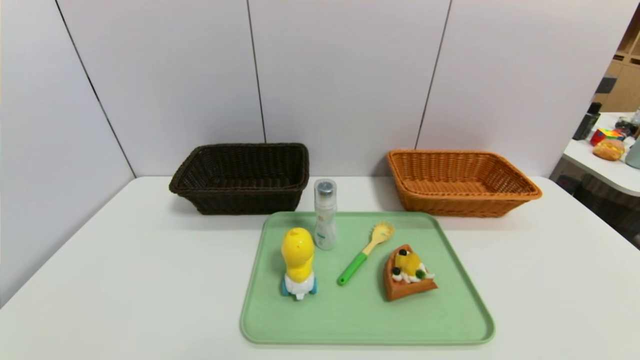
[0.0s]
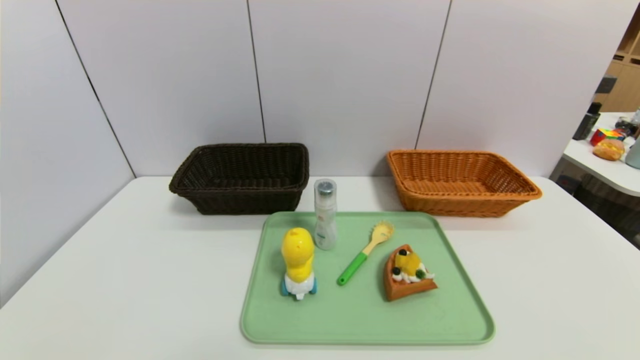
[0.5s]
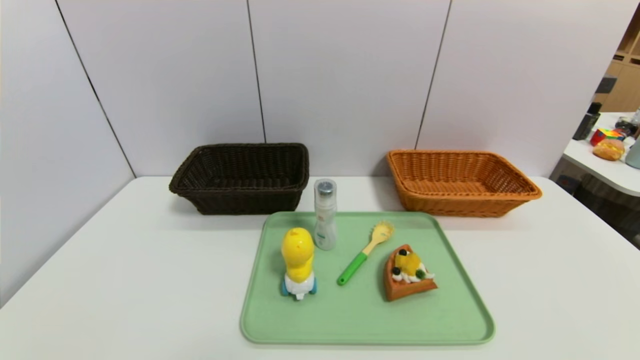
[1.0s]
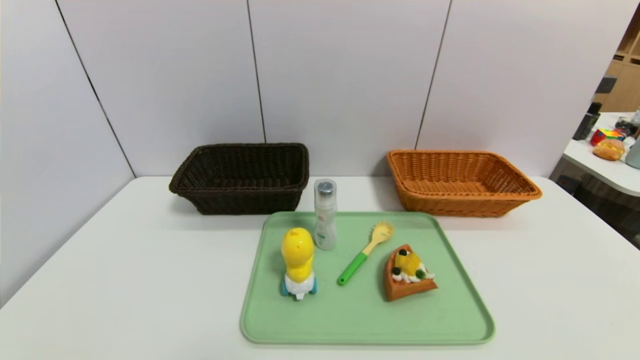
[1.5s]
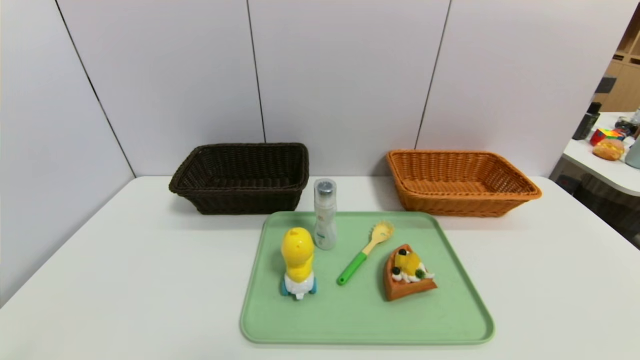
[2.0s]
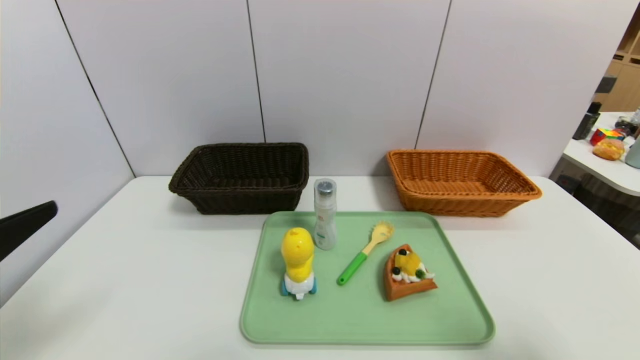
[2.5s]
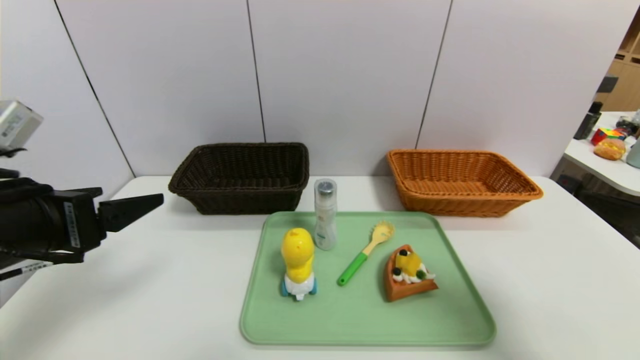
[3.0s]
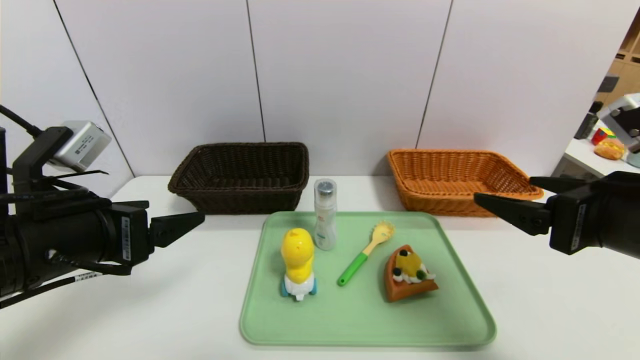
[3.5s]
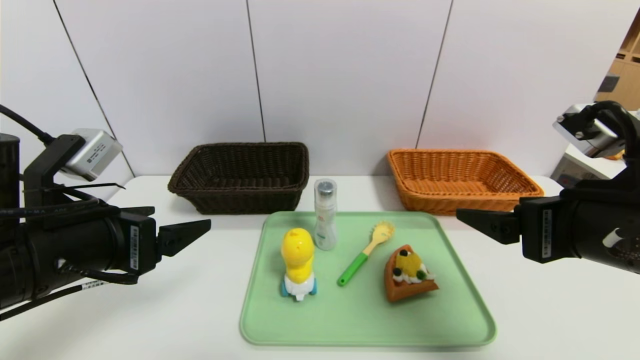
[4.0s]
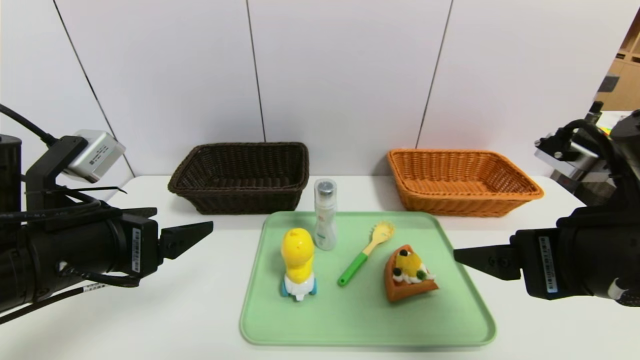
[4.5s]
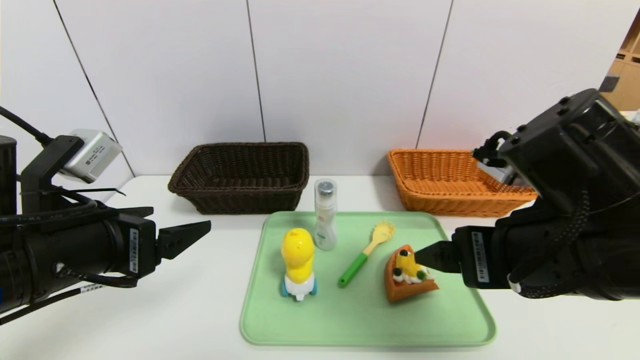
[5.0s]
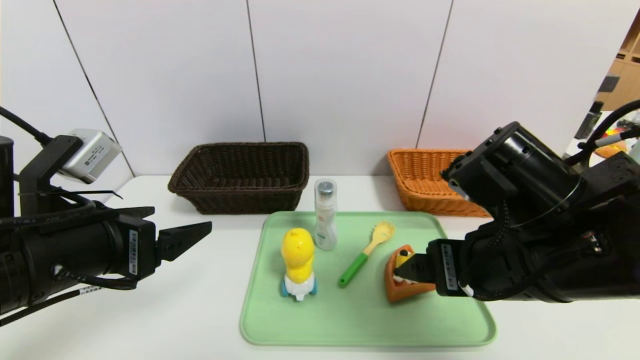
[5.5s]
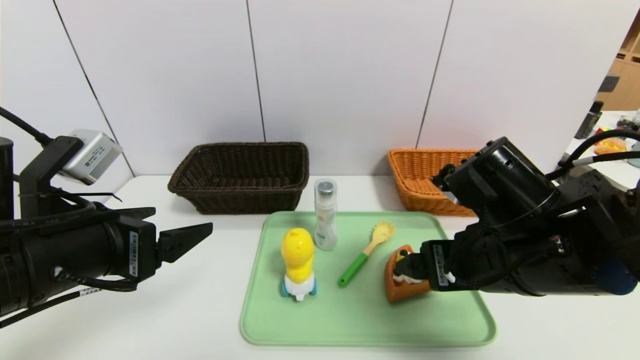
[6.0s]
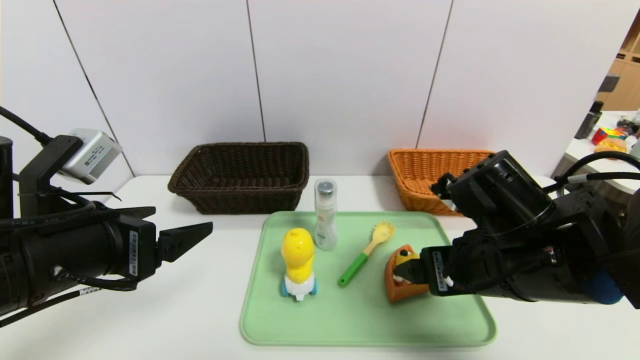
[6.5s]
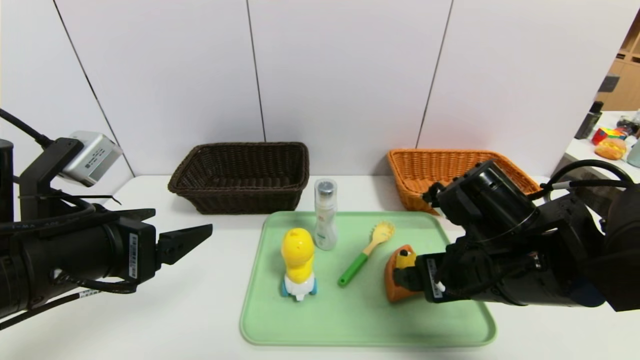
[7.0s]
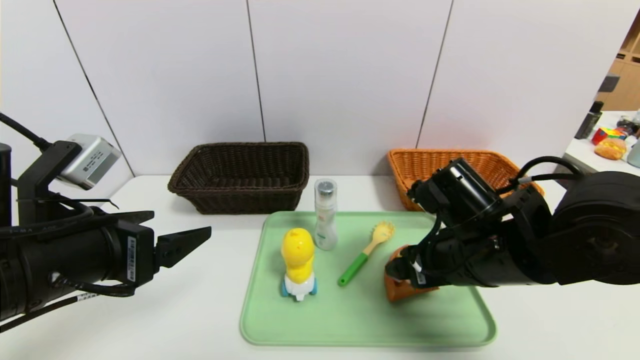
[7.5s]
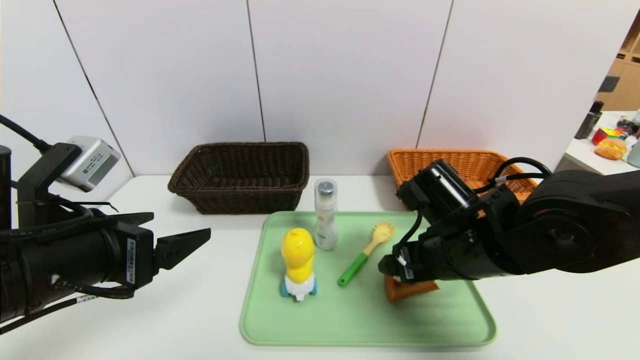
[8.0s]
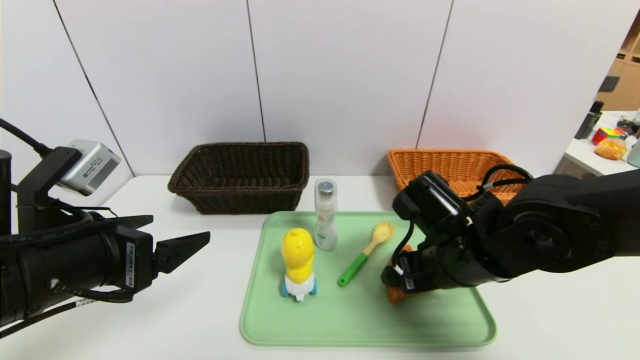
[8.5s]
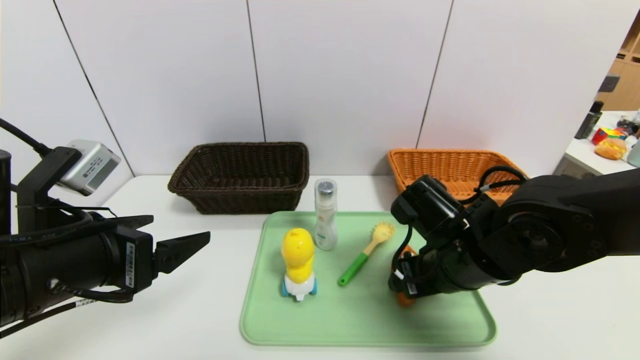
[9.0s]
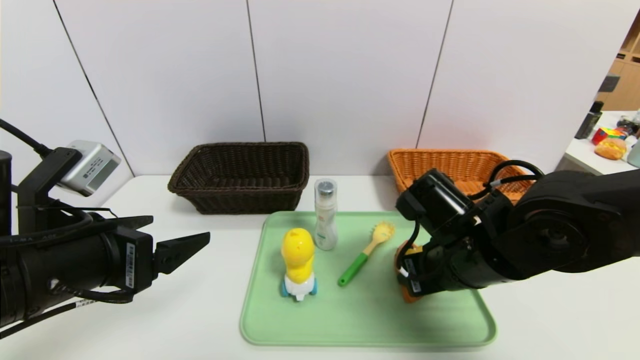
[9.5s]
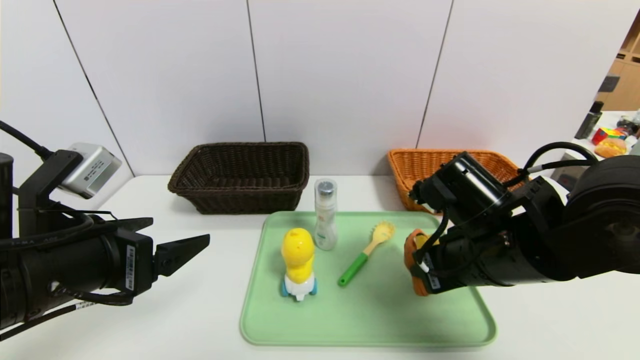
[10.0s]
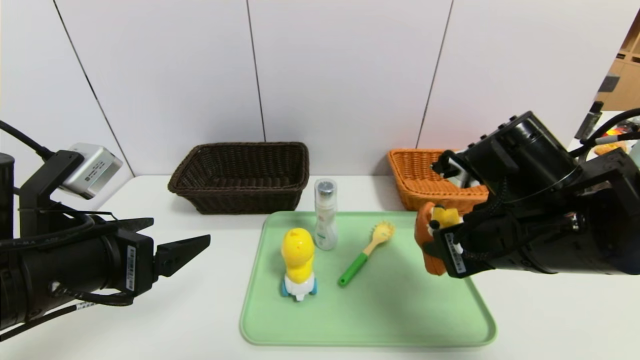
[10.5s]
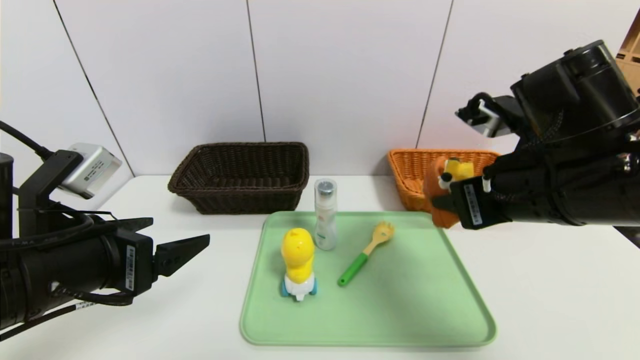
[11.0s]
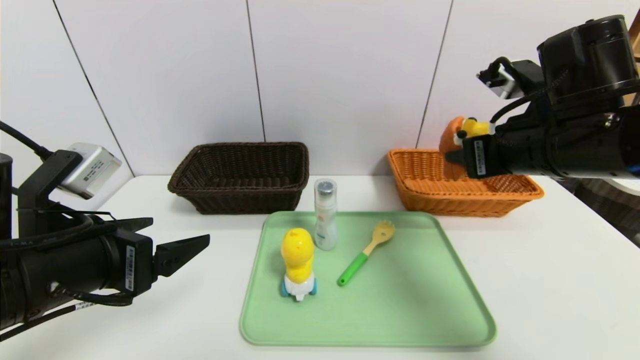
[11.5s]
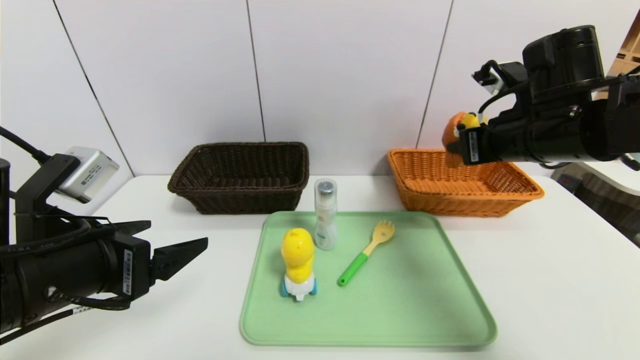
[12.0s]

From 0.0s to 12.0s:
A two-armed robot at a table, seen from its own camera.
Task of the whole recording: place the food in the right basket with the right gripper, and place the non food items in the left basket with the left gripper.
From 2.0s to 4.0s: The right gripper goes about 25 cm forward, upward and to the left. The left gripper moves forward and upward, roughly 20 cm.
From 4.0s to 6.0s: The right gripper moves to the left, approximately 5 cm.
From 6.0s to 8.0s: The right gripper changes place by roughly 5 cm.
From 8.0s to 10.0s: The right gripper closes its fingers.
From 10.0s to 12.0s: The right gripper is displaced upward, forward and to the right by approximately 15 cm.

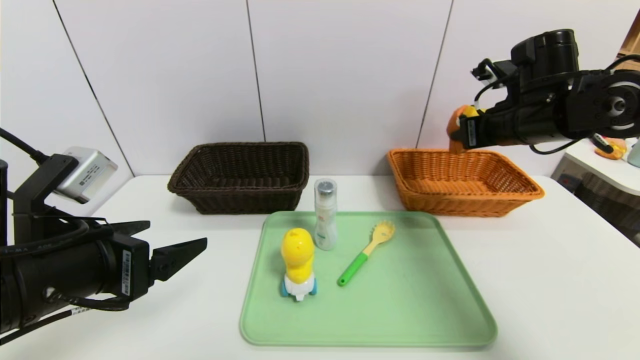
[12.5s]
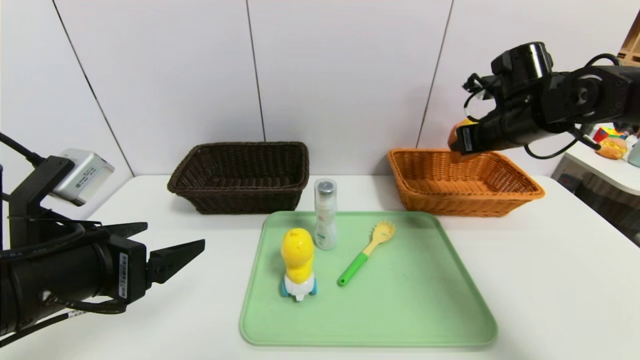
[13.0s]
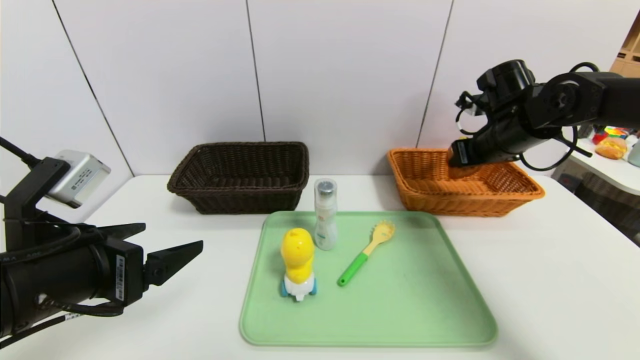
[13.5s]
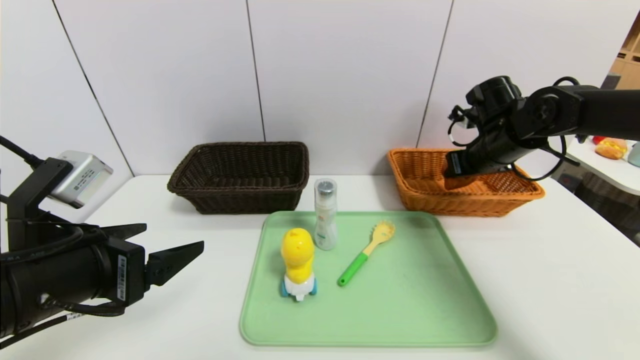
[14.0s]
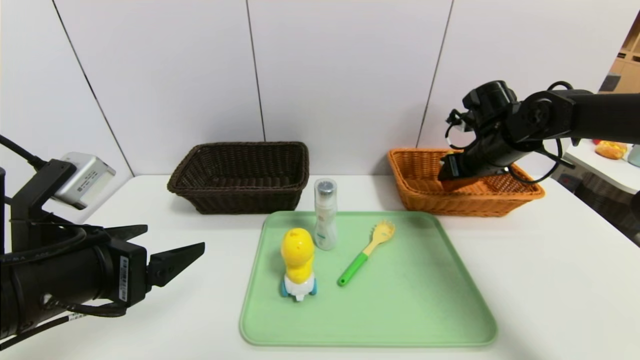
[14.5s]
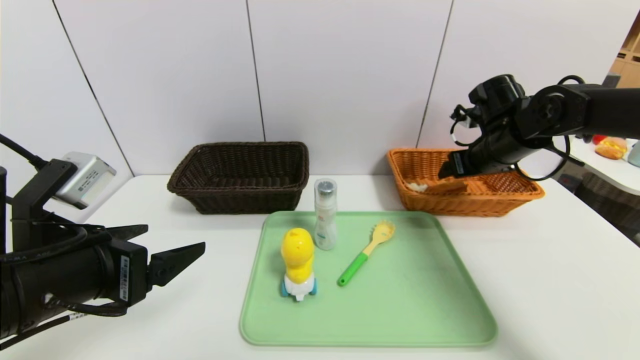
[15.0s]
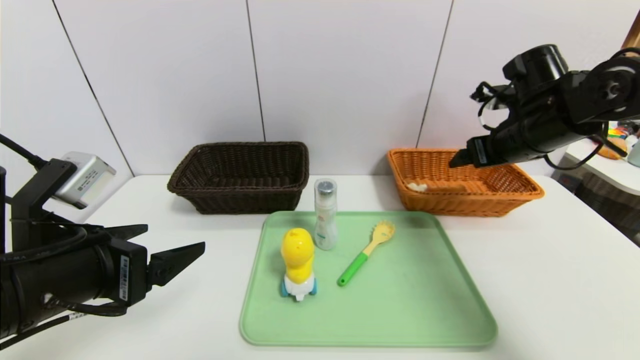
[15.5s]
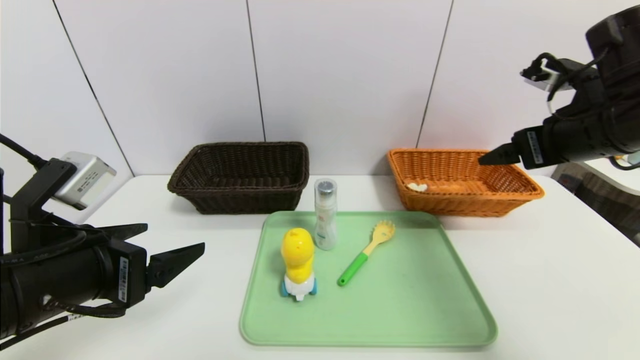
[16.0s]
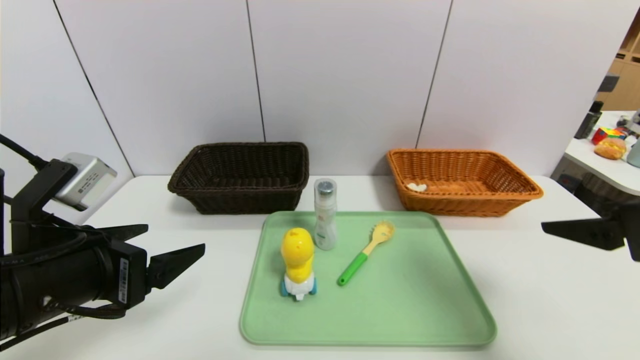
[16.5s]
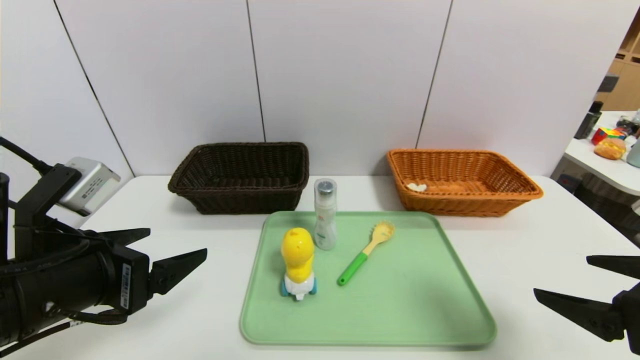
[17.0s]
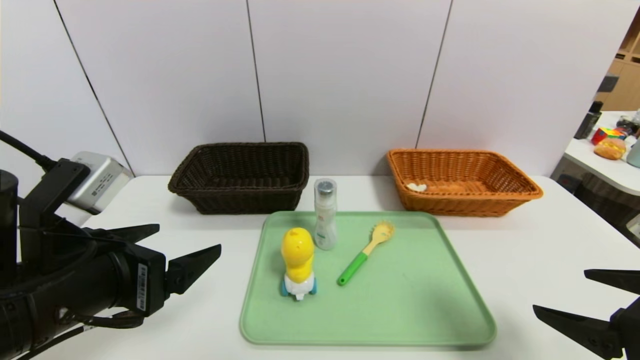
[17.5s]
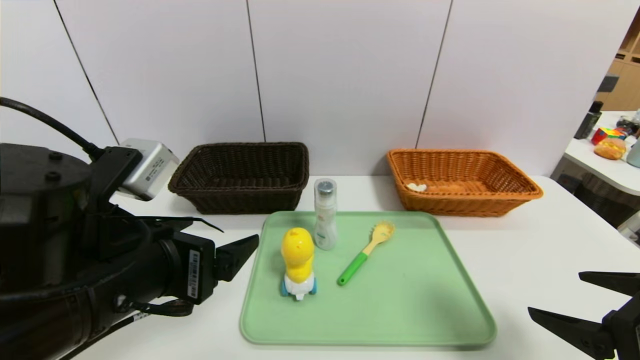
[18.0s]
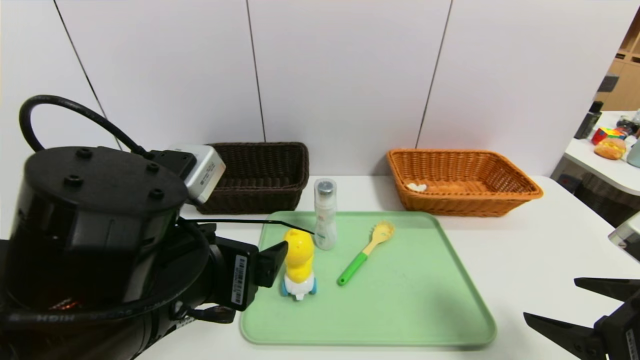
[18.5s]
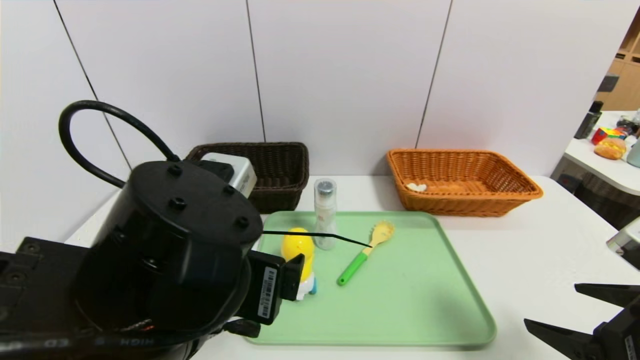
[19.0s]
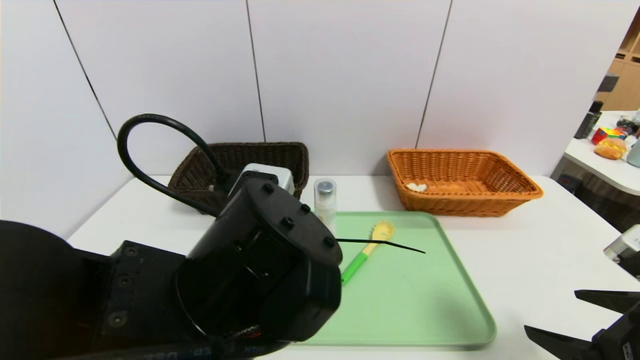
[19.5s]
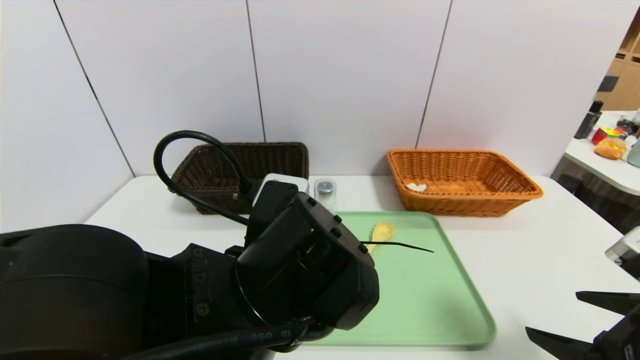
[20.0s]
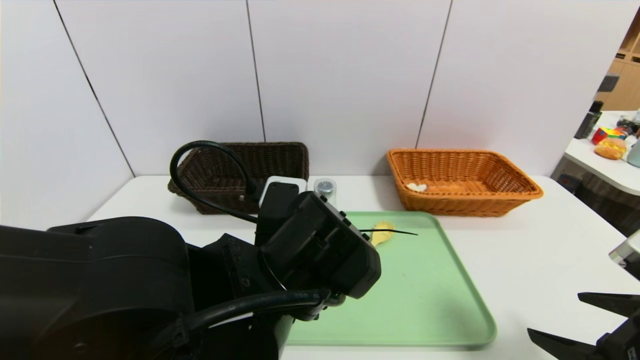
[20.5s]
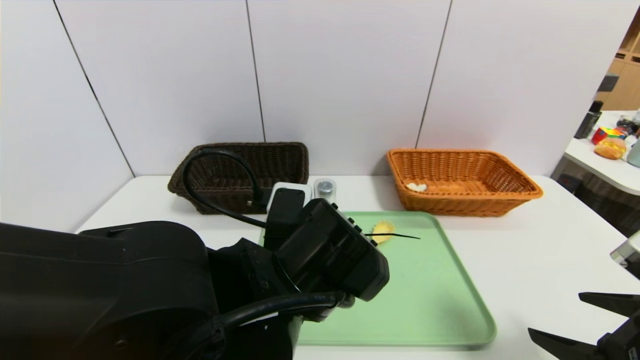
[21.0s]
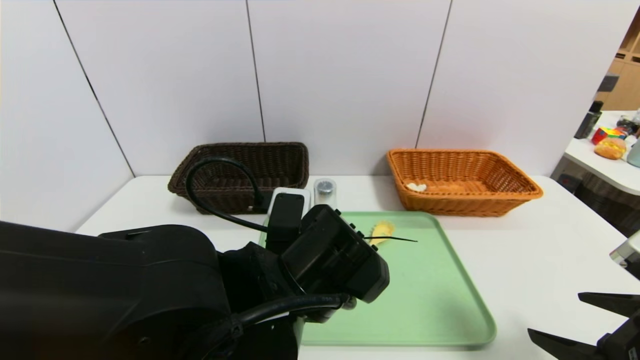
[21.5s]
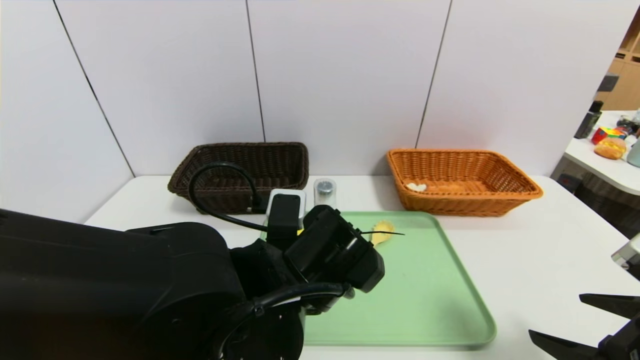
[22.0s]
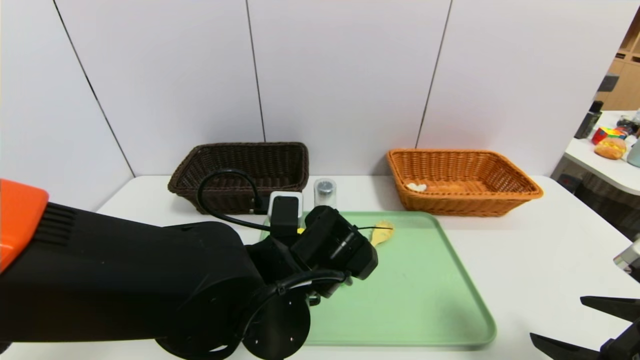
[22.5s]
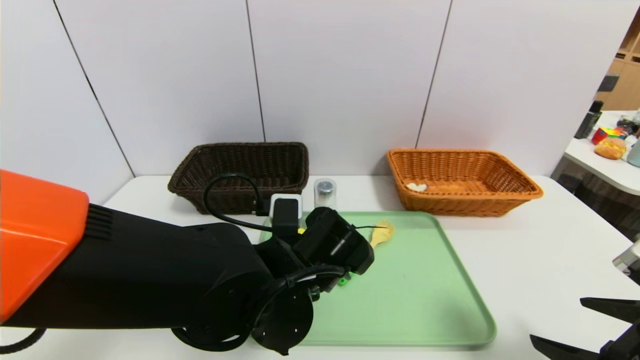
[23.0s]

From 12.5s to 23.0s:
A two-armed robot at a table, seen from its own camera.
Task of the whole recording: place the food in the right basket with the right gripper, and place the non food items in the left basket with the left gripper.
Step, from 12.5s to 15.0s: Grasp the waffle and put it in the right basket.
From 12.5s to 14.5s: The right gripper travels downward and forward by roughly 10 cm, and opens up.
From 14.5s to 16.5s: The right gripper moves backward, roughly 25 cm, and opens its fingers.
From 16.5s to 19.0s: The right gripper goes roughly 10 cm downward. Meanwhile the left gripper heads to the right, covering some 15 cm.
From 19.0s to 21.0s: The left gripper heads to the right, covering roughly 5 cm.
From 21.0s to 23.0s: The left gripper ends up some 5 cm from where it was.
